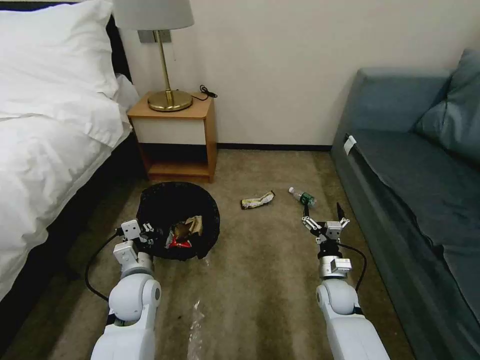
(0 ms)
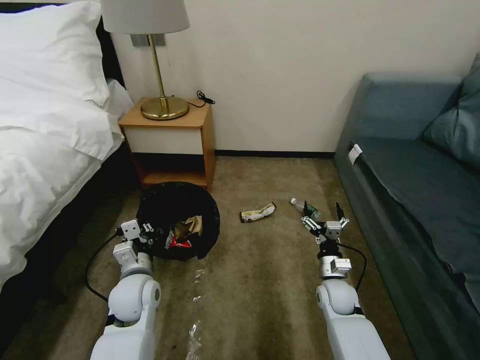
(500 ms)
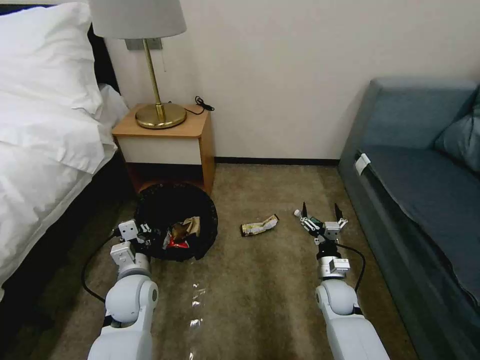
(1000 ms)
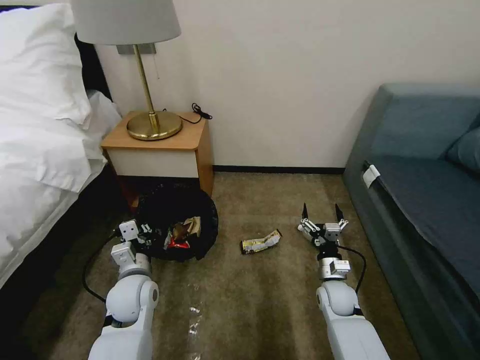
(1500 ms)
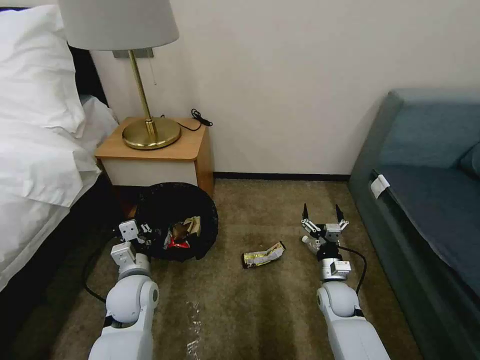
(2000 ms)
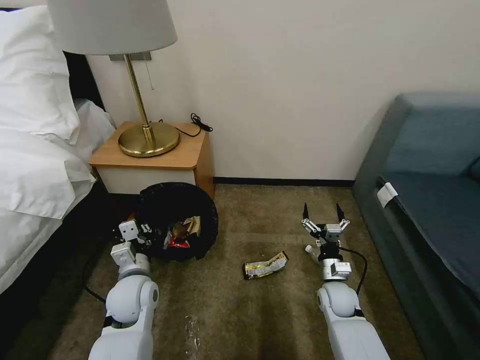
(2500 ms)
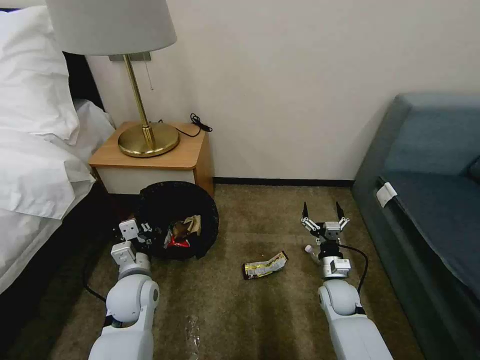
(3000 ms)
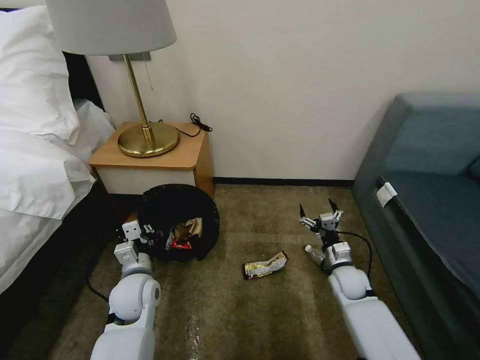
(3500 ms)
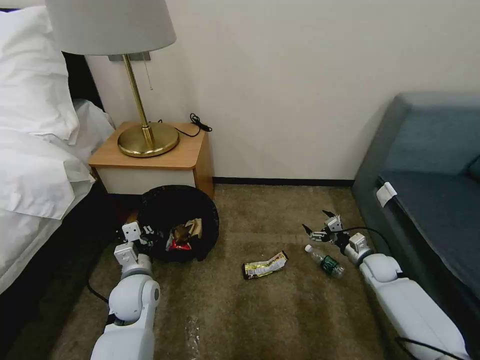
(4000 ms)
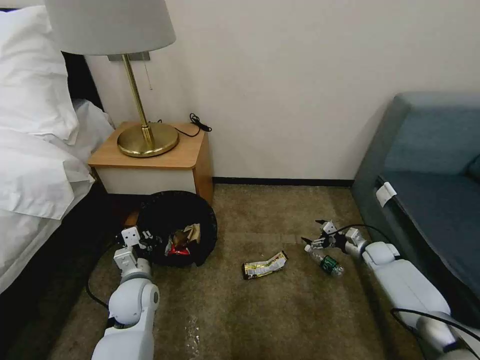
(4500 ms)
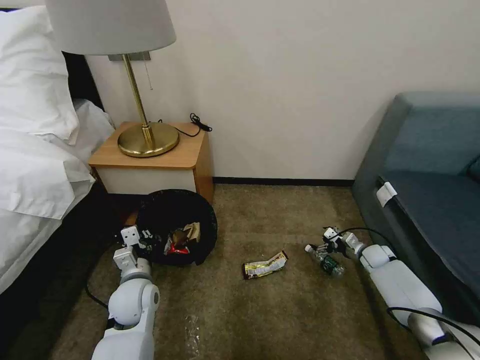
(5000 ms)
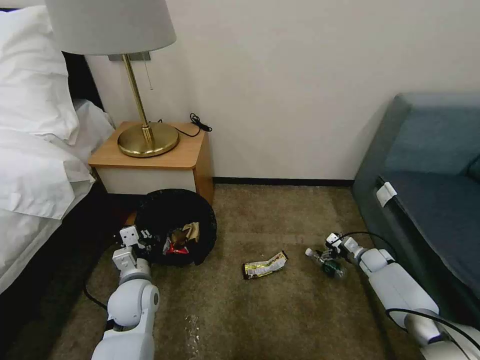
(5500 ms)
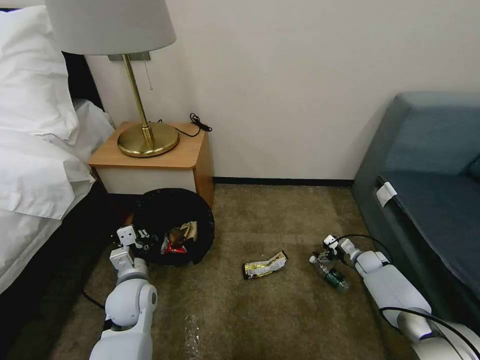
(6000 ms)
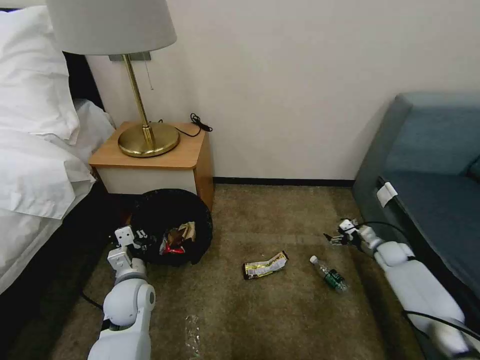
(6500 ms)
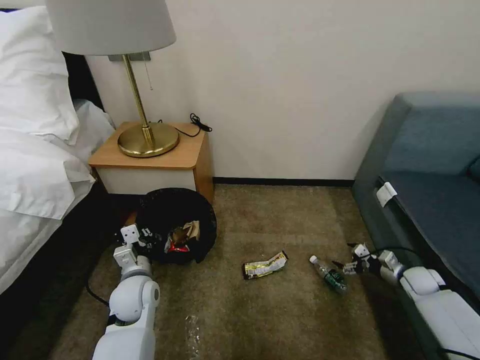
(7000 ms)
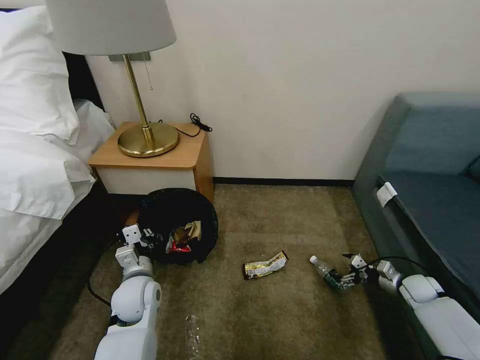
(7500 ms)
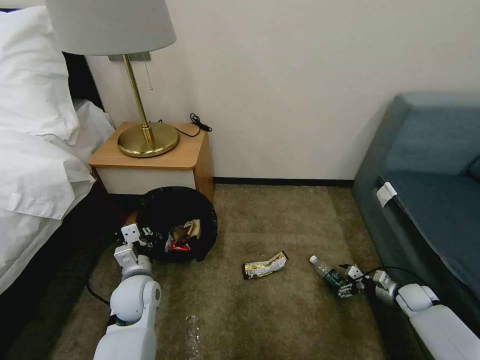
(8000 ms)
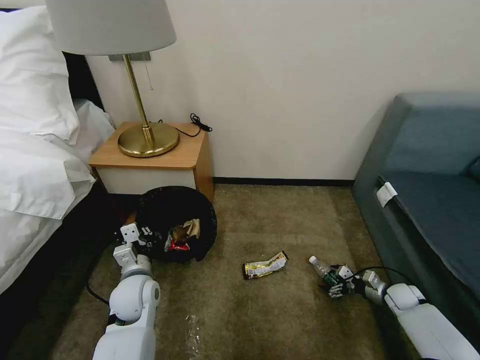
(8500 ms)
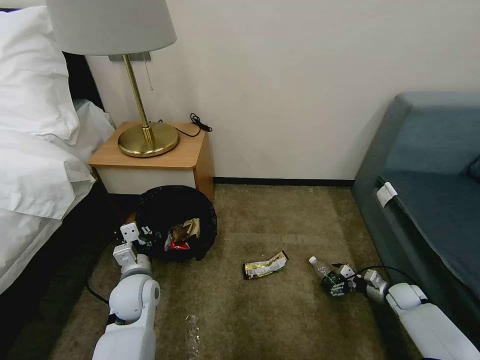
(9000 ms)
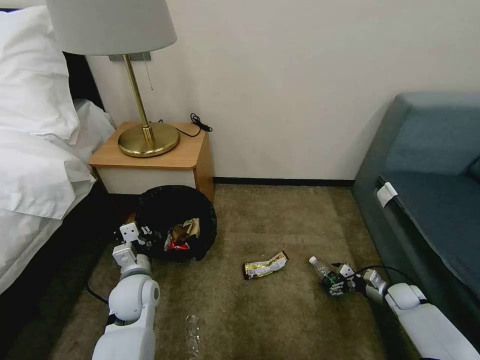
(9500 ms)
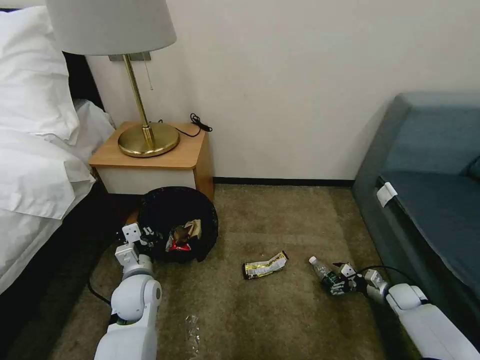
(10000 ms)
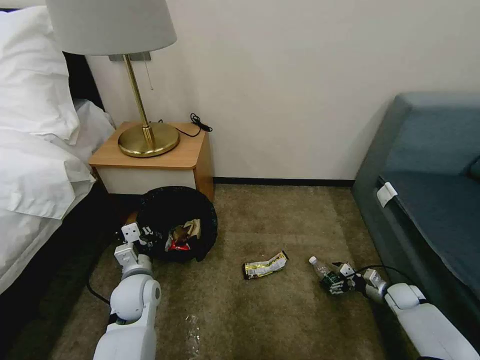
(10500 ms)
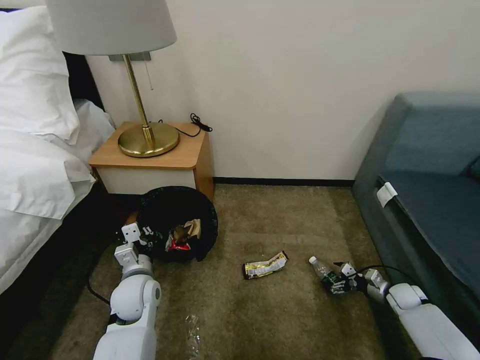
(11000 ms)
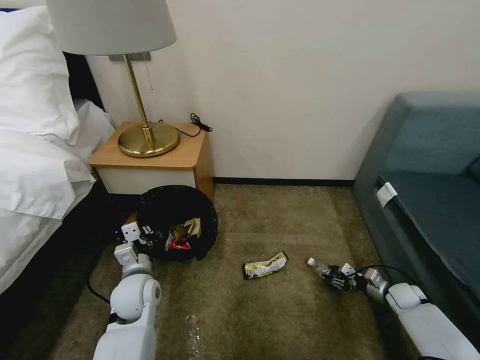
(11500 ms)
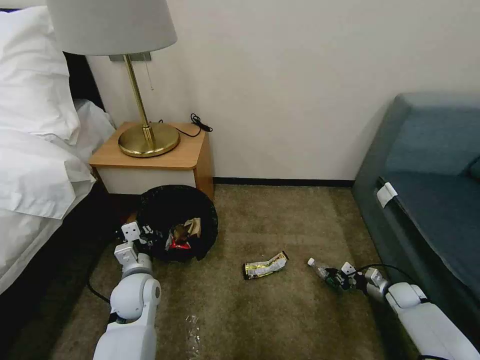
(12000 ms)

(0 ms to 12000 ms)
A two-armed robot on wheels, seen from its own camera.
Task of the whole recording: Pick up the trash bin, then pick up the garbage on the floor and place it into the trash bin.
2000 ms - 4000 ms: The right gripper shifts roughly 15 cm to the right and forward.
4000 ms - 6000 ms: The right gripper moves downward, about 5 cm.
6000 ms - 8000 ms: The right gripper shifts some 15 cm backward and to the right.
8000 ms - 10000 ms: The grippers move only a little.
10000 ms - 12000 ms: The right gripper closes up.

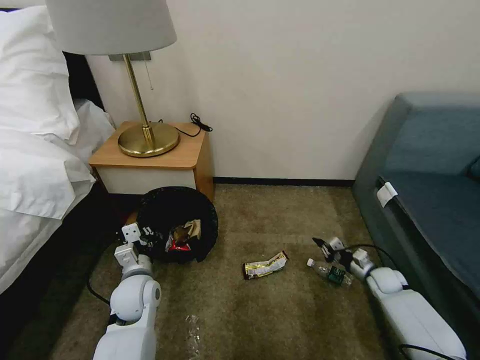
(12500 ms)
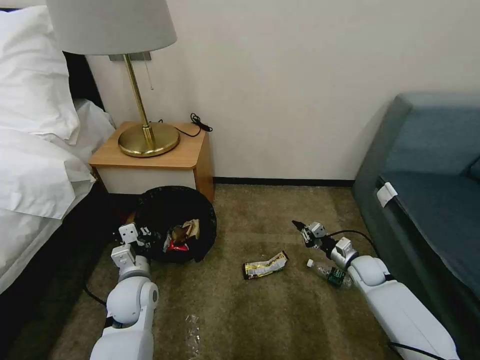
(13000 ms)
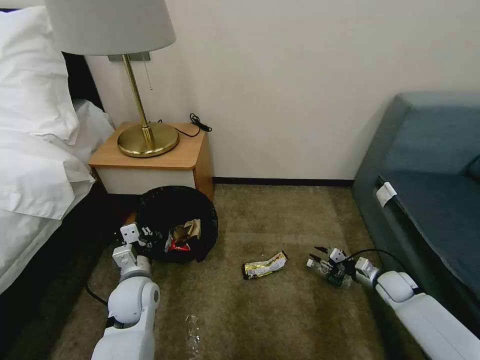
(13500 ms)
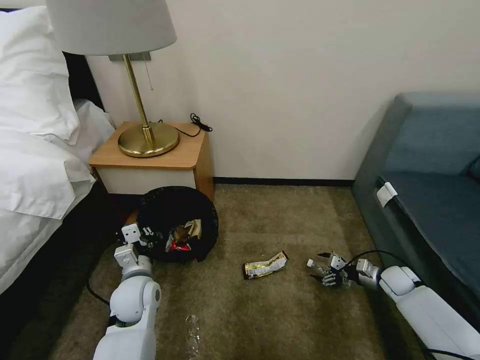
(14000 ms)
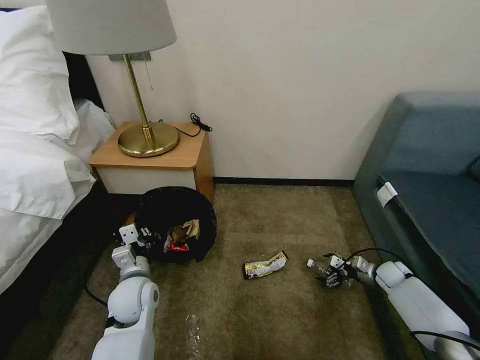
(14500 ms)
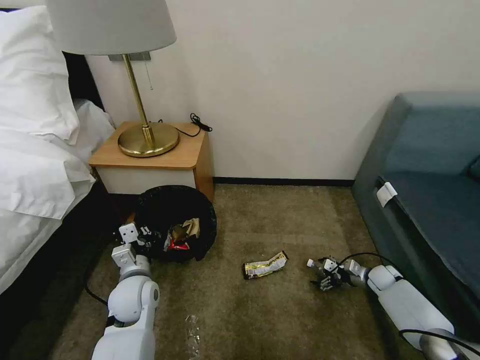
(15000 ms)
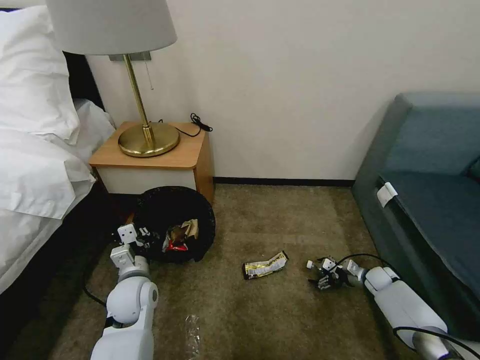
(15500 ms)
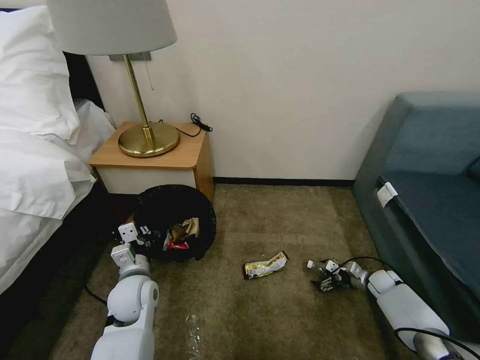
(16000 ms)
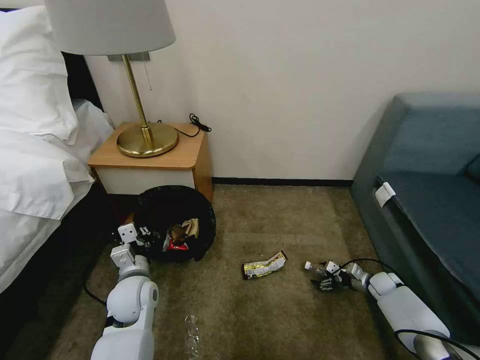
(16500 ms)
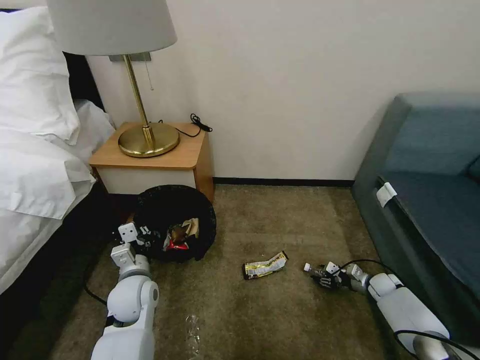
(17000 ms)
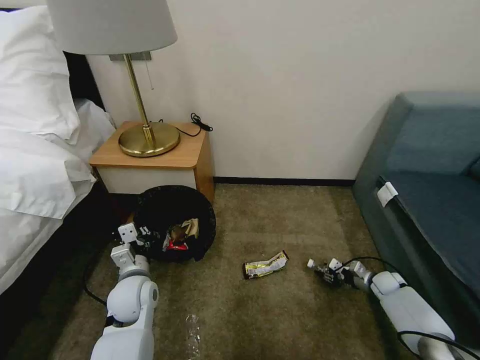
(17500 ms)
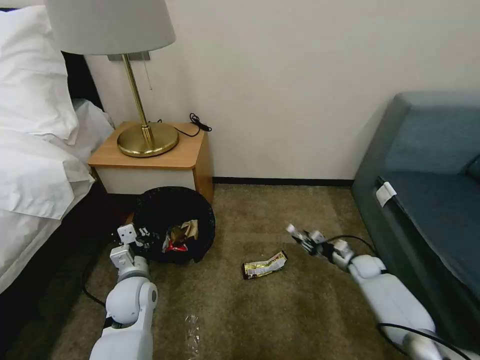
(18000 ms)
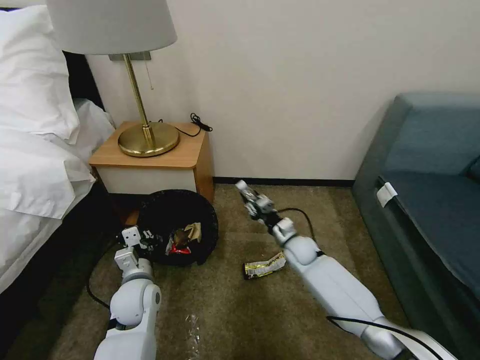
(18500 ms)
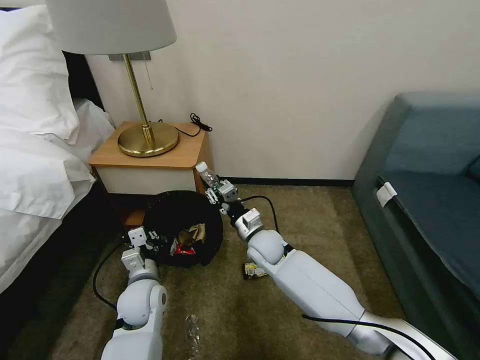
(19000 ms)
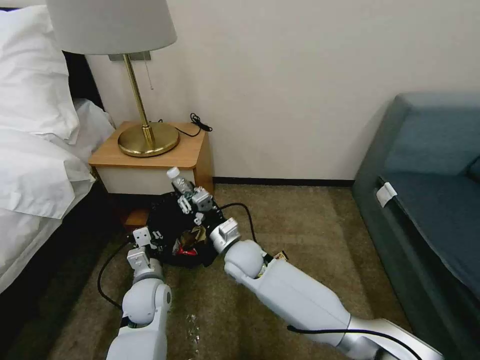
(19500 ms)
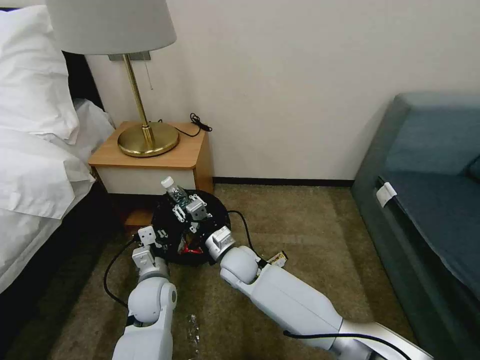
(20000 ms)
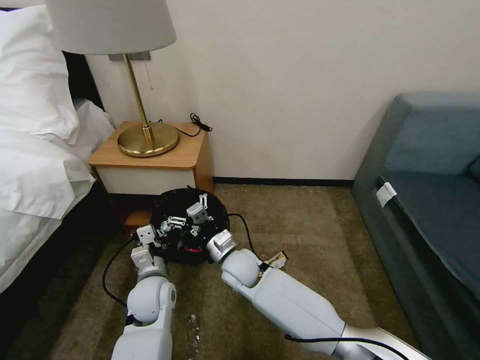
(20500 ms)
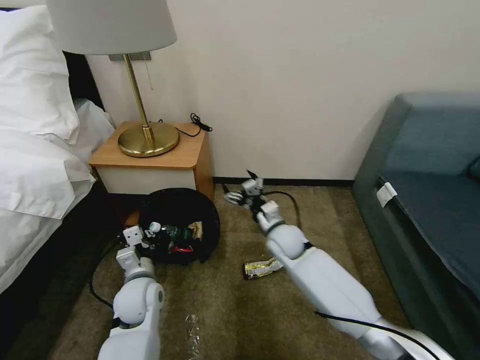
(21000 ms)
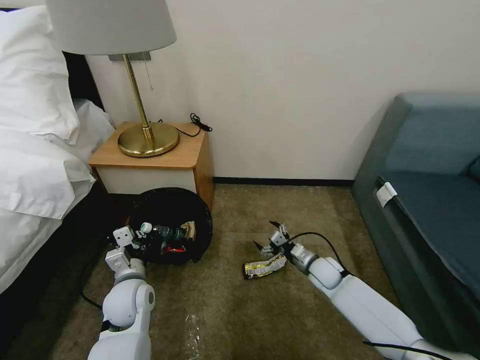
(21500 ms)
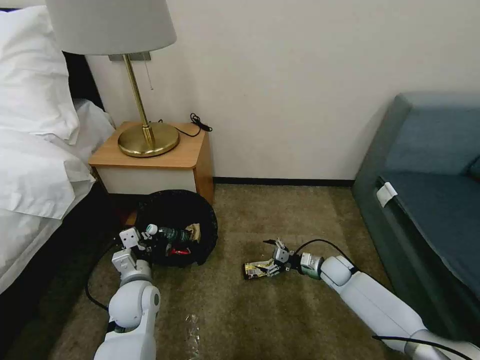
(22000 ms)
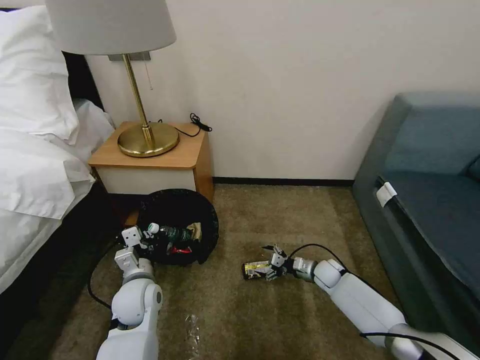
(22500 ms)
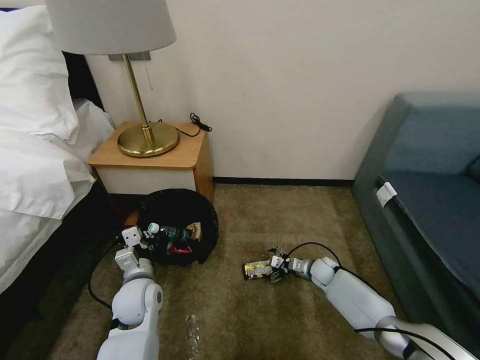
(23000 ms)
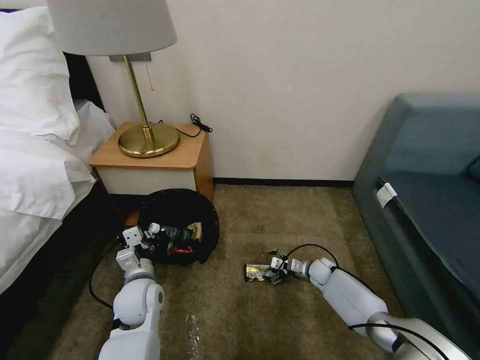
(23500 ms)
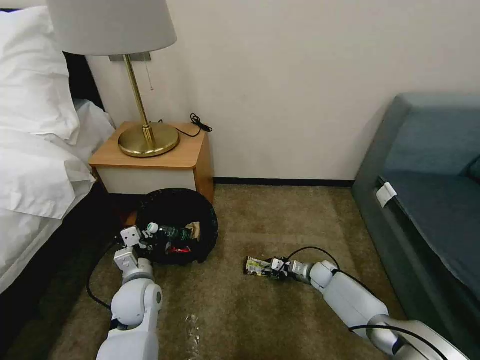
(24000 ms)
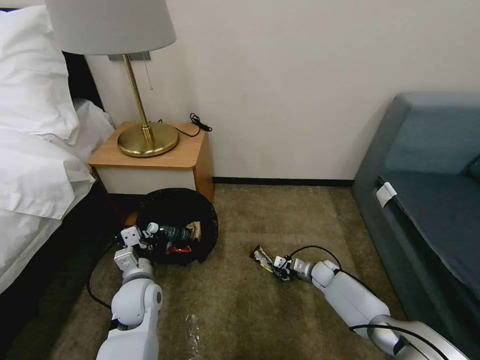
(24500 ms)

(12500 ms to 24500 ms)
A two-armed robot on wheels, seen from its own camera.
Task of the whole recording: Pick up the trash bin, then pick up the garbage on the floor and place it into the trash bin.
12500 ms - 14500 ms: The right gripper opens.
14500 ms - 16500 ms: There are only small adjustments of the grippers.
16500 ms - 18500 ms: The right gripper shifts about 30 cm to the left, and closes.
18500 ms - 20500 ms: The right gripper shifts roughly 20 cm to the left and backward, and opens its fingers.
20500 ms - 22500 ms: The right gripper goes about 35 cm to the right and downward.
22500 ms - 24500 ms: The right gripper closes up.

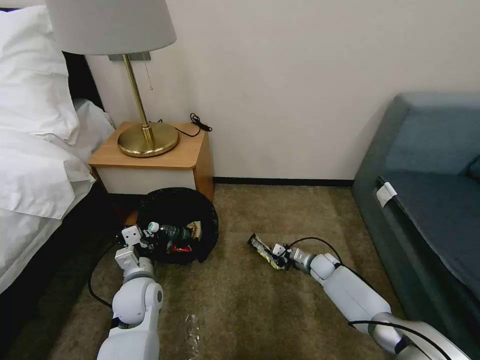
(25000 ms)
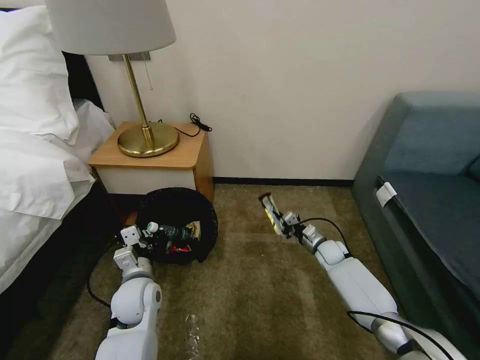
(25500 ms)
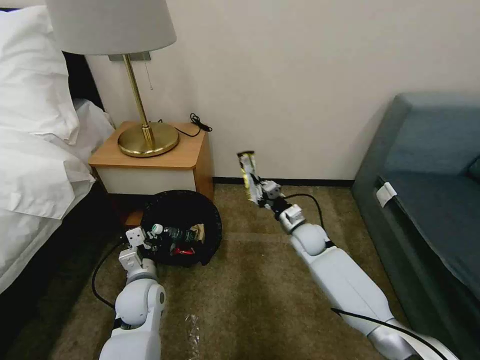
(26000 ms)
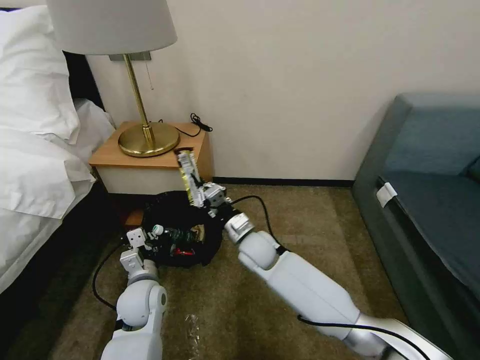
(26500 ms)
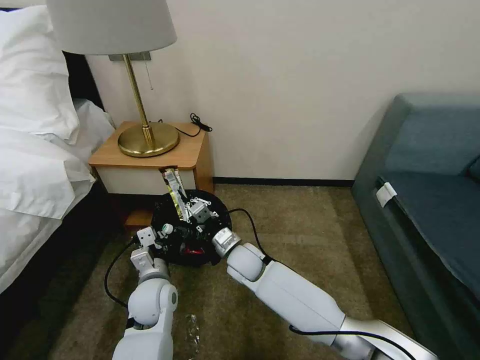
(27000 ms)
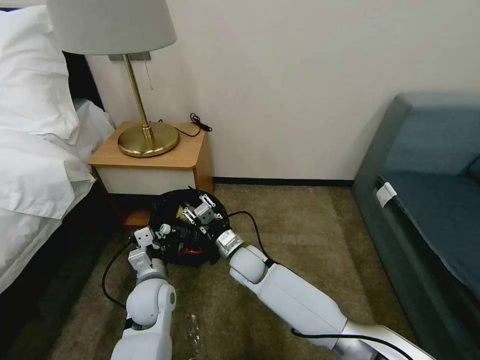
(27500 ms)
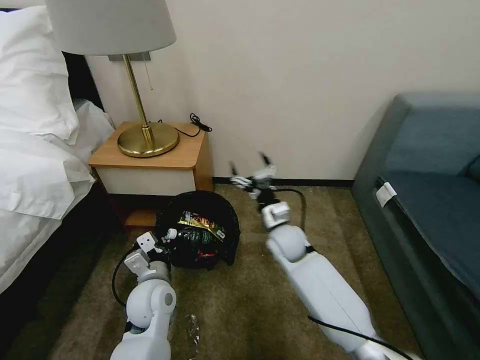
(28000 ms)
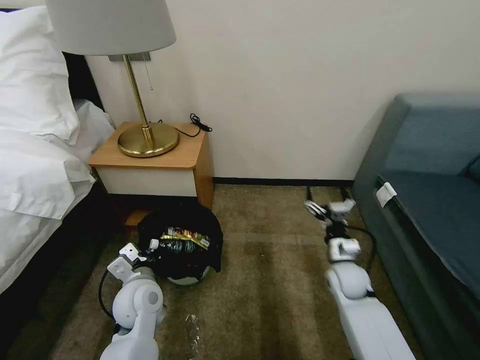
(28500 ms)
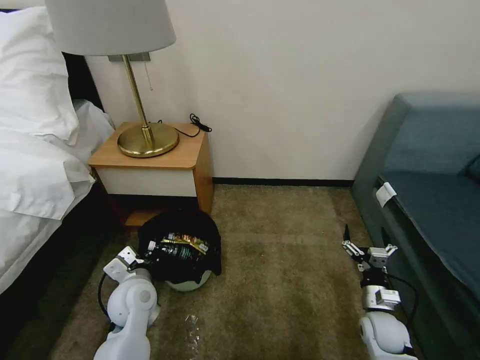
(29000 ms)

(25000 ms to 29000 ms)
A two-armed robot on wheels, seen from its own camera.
Task of the whole recording: Pick up the trash bin, then pick up the garbage on the floor and place it into the trash bin.
25000 ms - 27000 ms: The right gripper is displaced to the left and upward by some 30 cm.
27000 ms - 29000 ms: The right gripper moves to the right and backward, about 35 cm, and opens up.
